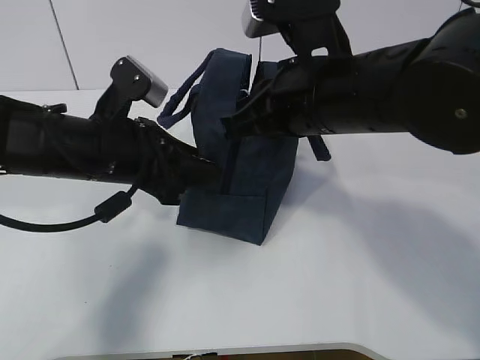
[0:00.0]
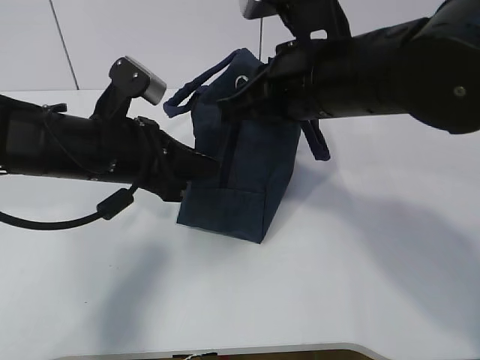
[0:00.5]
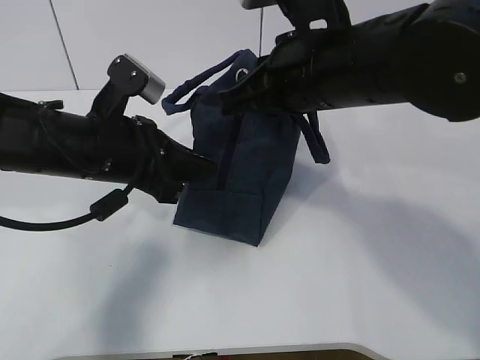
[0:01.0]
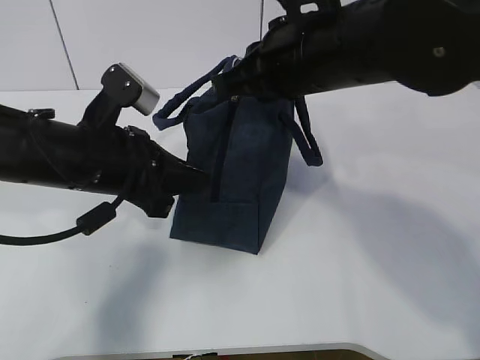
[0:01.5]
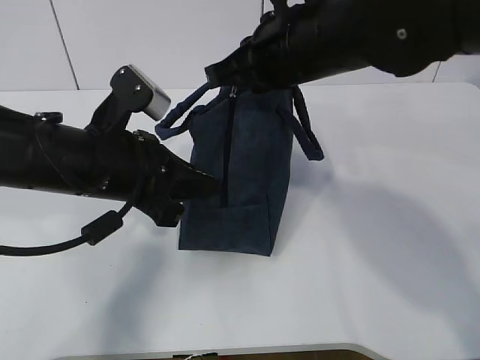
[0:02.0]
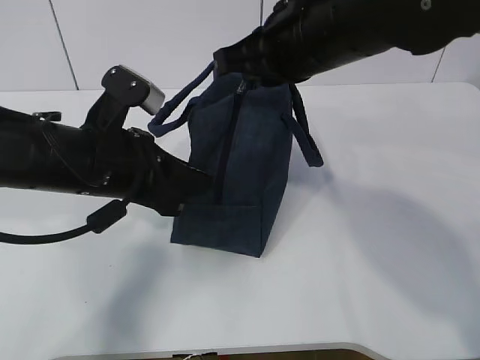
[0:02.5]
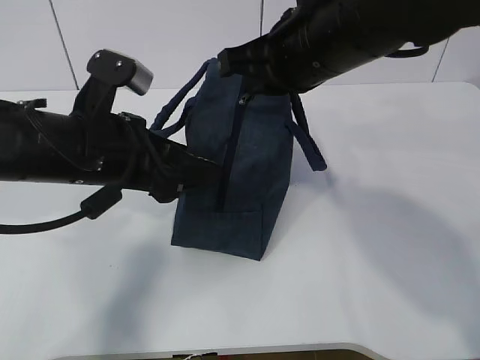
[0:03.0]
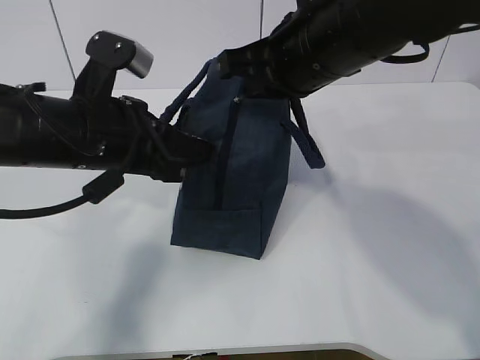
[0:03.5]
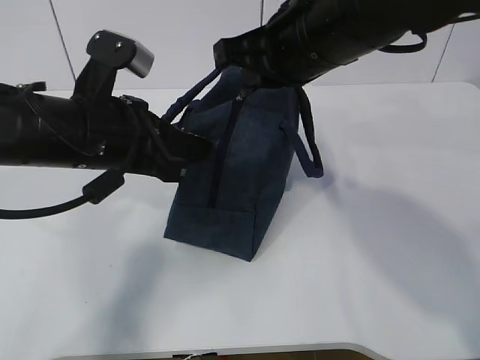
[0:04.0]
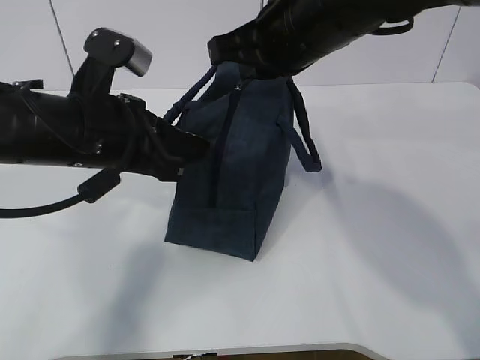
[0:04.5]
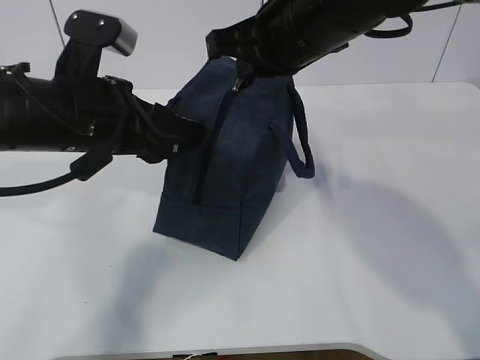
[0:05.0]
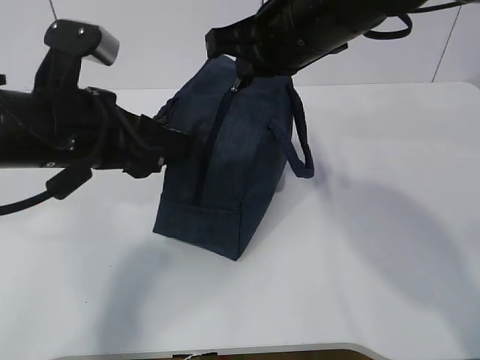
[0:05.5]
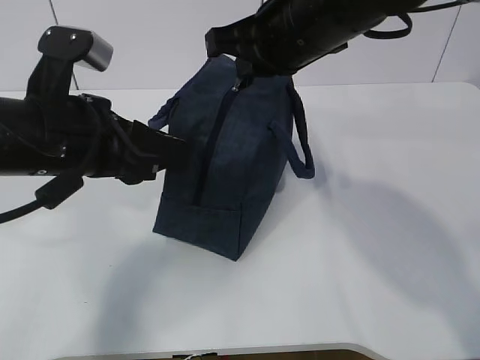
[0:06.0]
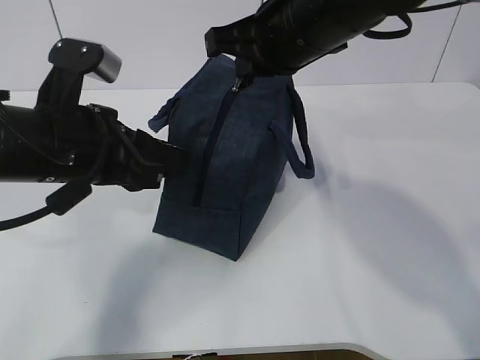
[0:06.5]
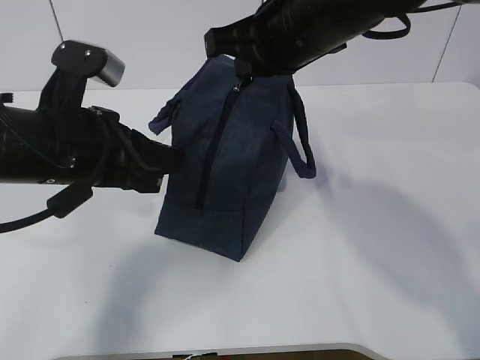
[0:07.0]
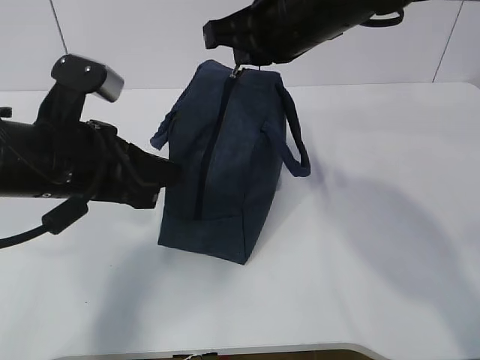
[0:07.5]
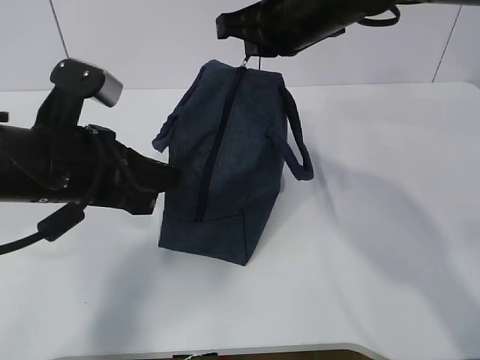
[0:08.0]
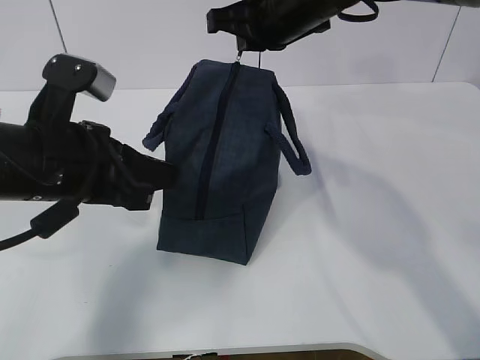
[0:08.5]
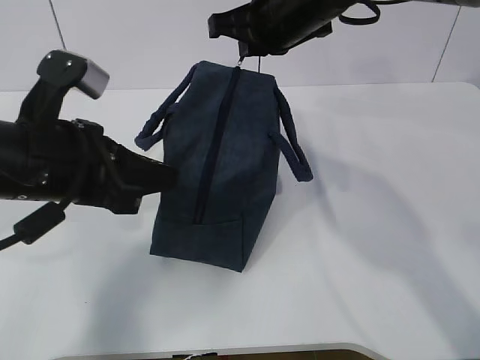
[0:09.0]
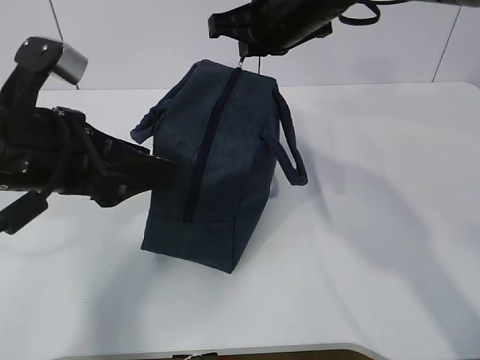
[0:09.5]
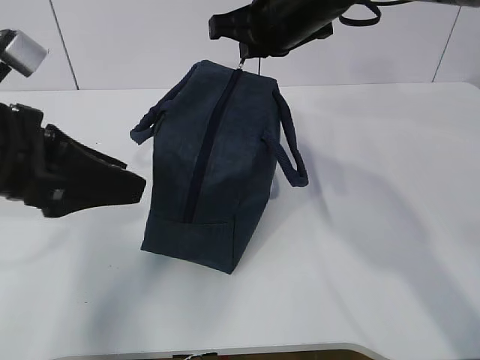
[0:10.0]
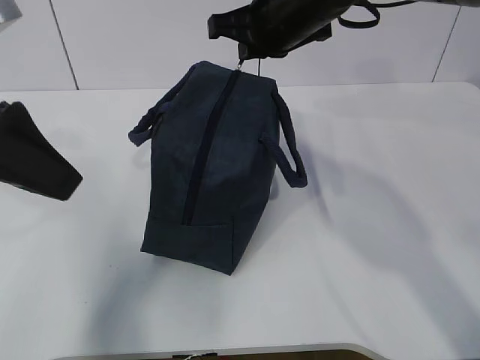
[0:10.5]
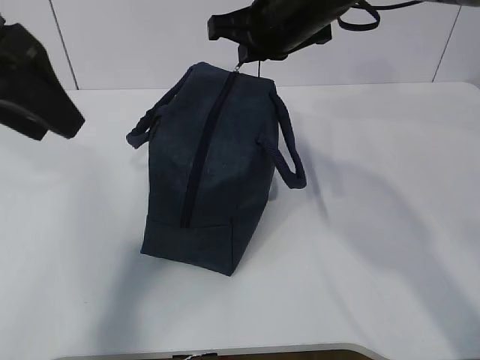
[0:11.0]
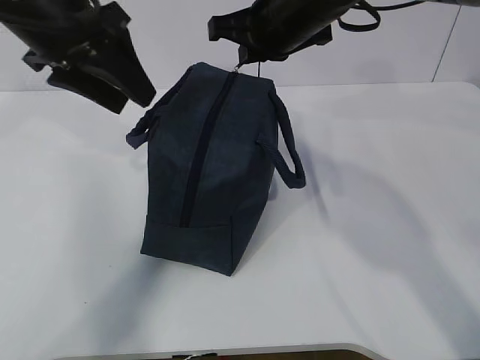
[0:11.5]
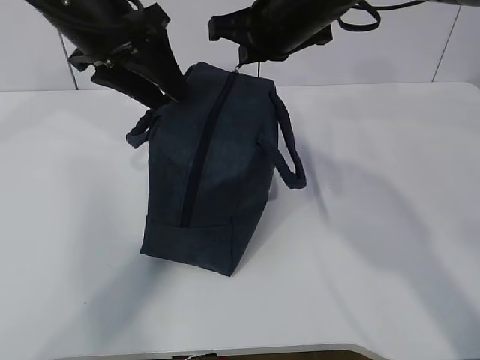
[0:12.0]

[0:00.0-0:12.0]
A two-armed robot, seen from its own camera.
Step, 0:00.0 to 0:07.0: Pull the zipper with your right hand.
0:00.0 to 0:02.0: The right gripper changes place by about 5 cm; the left gripper closes its fingers.
0:02.0 to 0:04.0: The left gripper opens, then closes once more.
0:04.0 to 0:06.0: The left gripper opens.
0:06.0 to 0:08.0: The left gripper closes its fingers.
0:08.0 to 0:10.0: The left gripper ends up about 5 cm from where it was, and opens up.
0:10.0 to 0:12.0: The left gripper travels forward by approximately 15 cm.

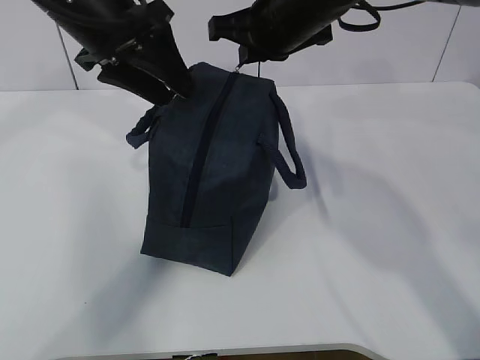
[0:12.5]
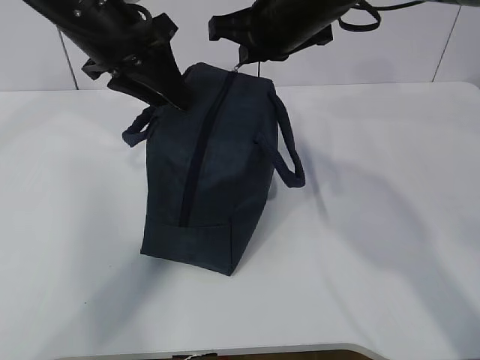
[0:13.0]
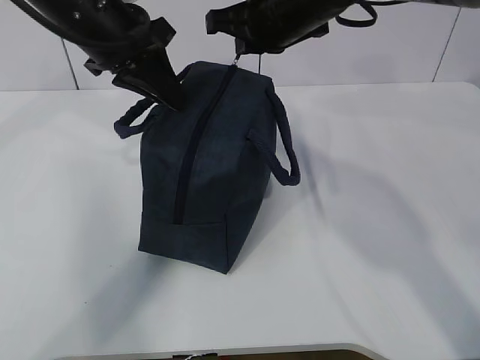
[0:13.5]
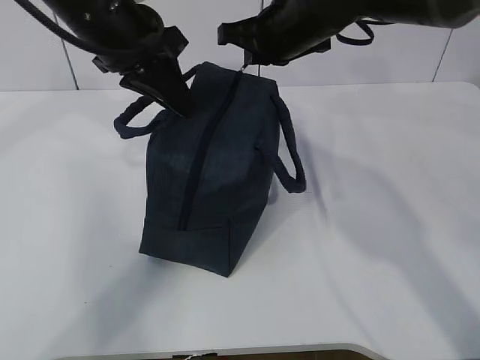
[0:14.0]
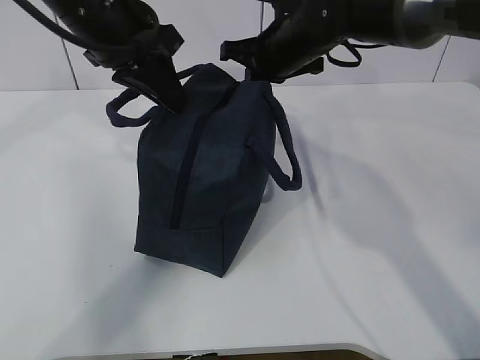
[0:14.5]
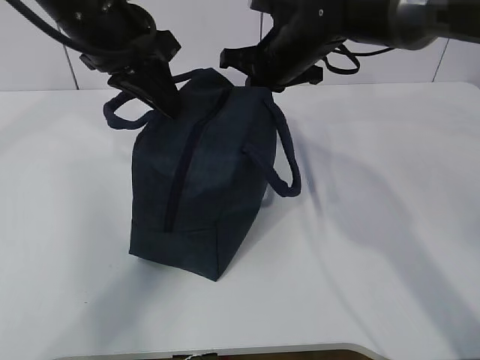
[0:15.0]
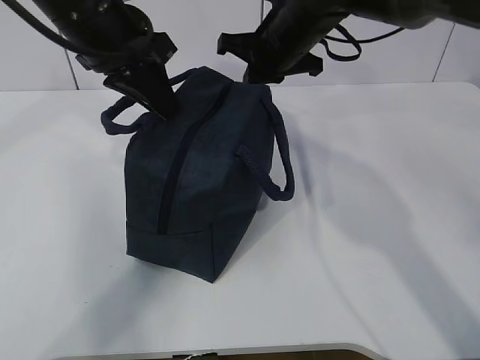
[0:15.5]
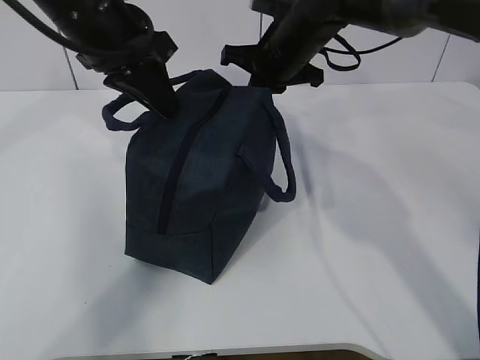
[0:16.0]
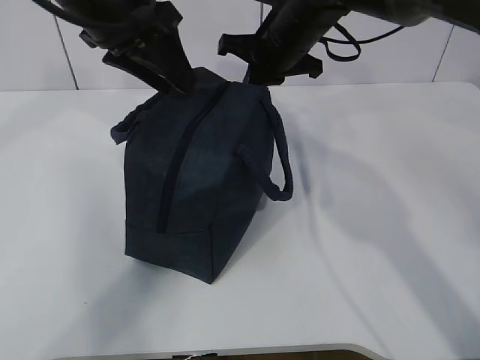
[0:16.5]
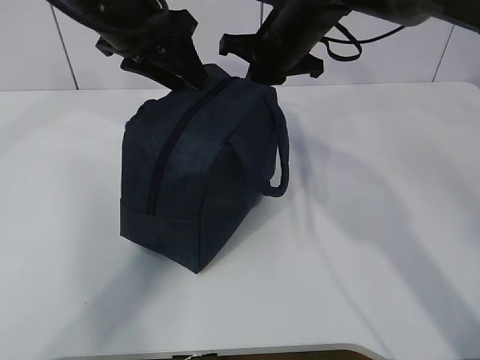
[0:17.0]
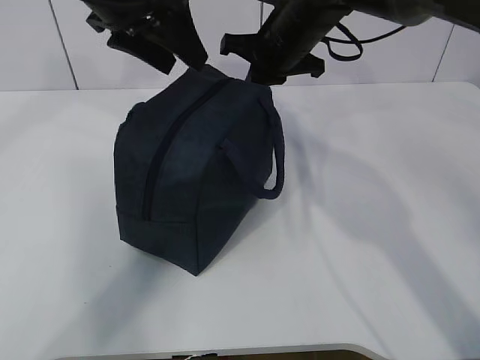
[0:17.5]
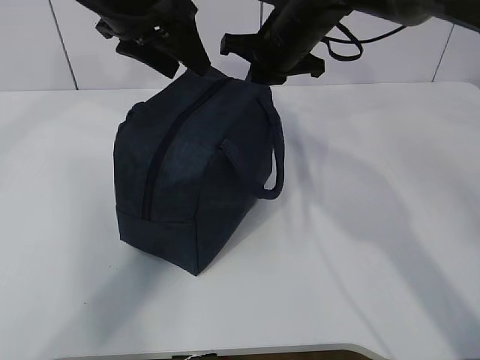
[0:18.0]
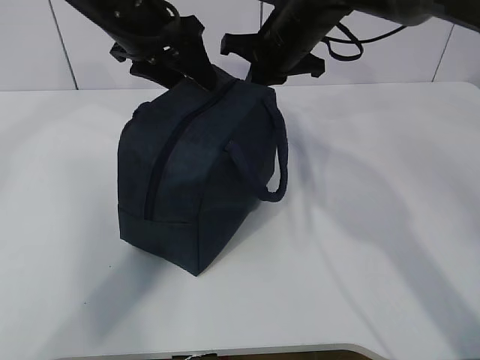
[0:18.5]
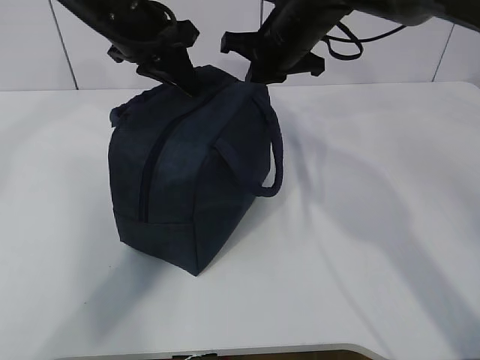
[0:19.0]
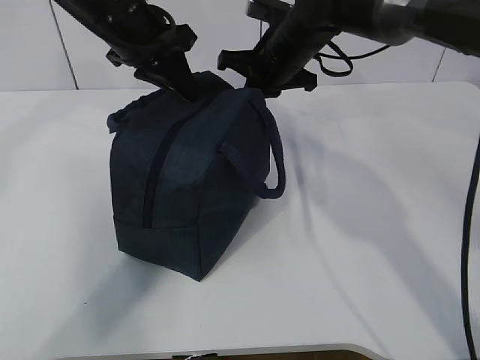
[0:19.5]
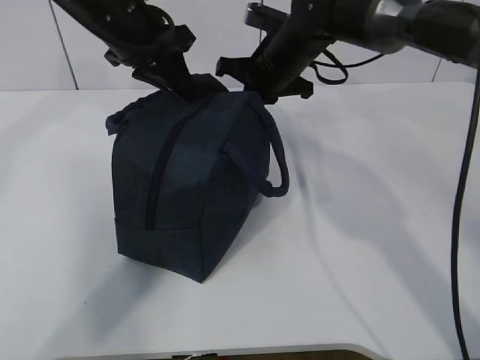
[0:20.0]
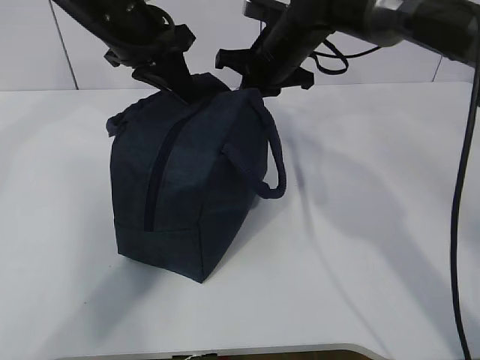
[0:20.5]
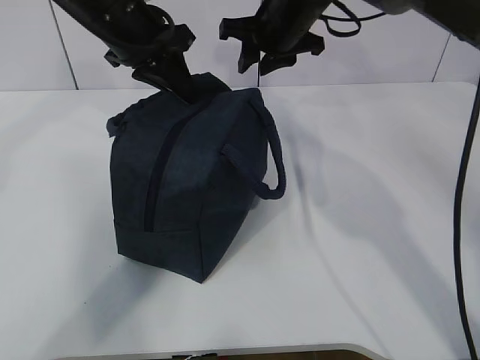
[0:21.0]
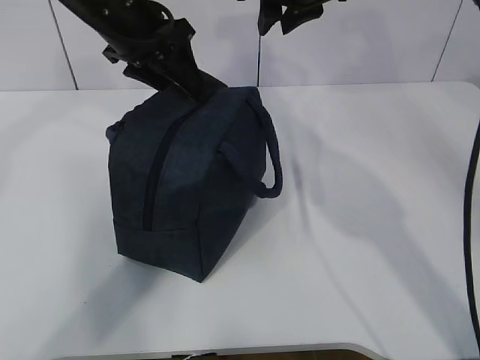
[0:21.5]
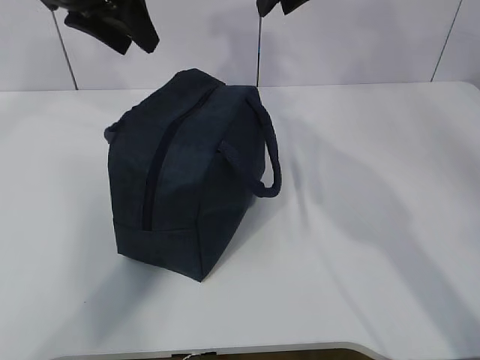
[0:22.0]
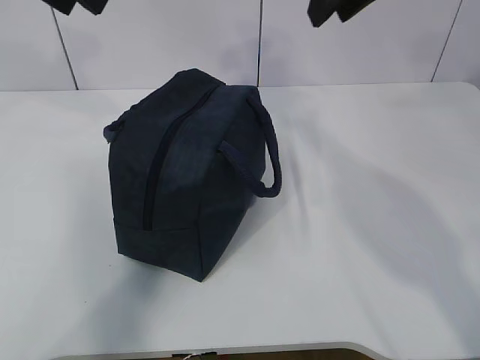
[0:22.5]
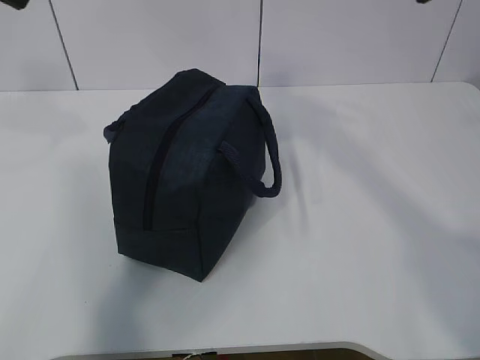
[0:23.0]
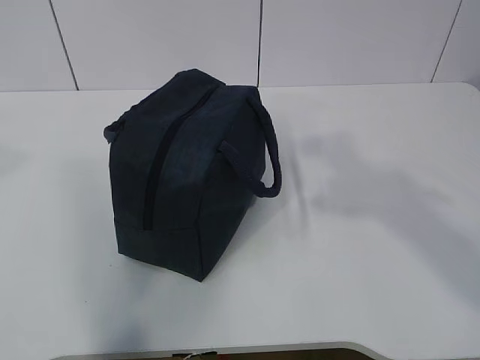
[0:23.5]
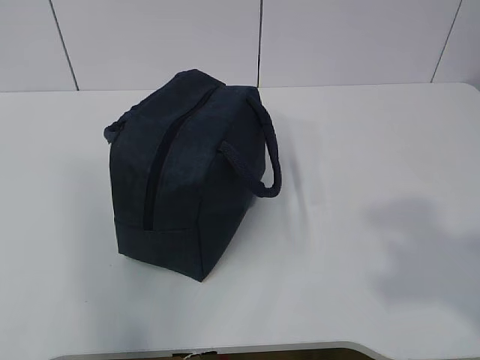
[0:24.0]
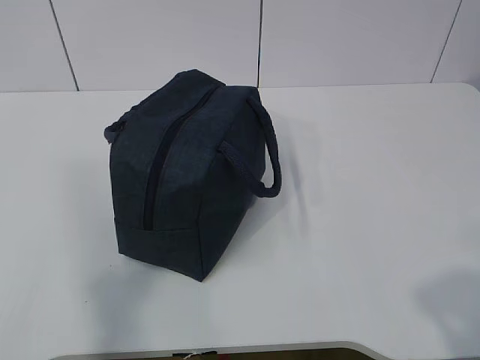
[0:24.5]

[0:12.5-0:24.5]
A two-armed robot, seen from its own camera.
0:12.5 to 0:14.5: The right gripper is displaced forward and downward by some 10 cm; the left gripper closes its fingers.
0:14.5 to 0:16.5: The left gripper opens its fingers.
0:16.5 to 0:18.5: The left gripper is displaced forward by about 5 cm.
0:18.5 to 0:20.5: The left gripper closes up.
0:20.5 to 0:22.5: The right gripper is displaced upward and backward by roughly 20 cm, and opens its fingers. Meanwhile the left gripper is displaced upward, to the left and backward by about 15 cm, and opens up.
0:22.5 to 0:24.5: The right gripper goes approximately 40 cm backward and to the right. Meanwhile the left gripper shifts roughly 35 cm backward.

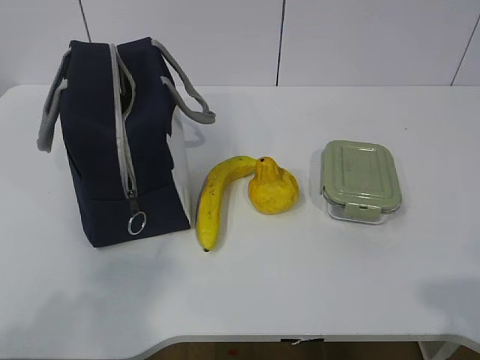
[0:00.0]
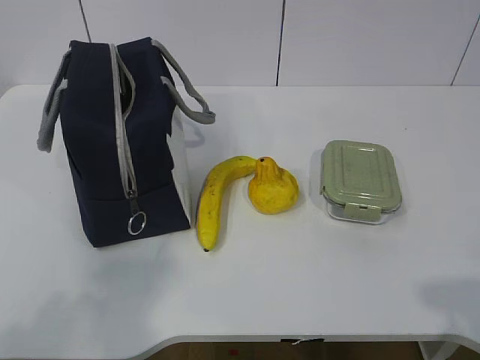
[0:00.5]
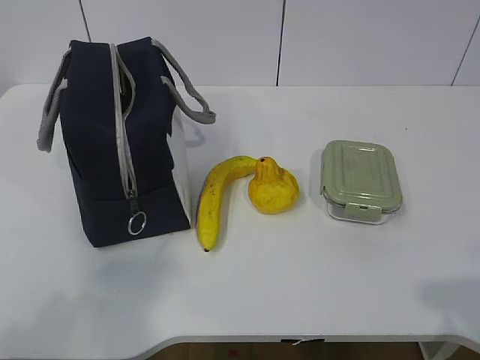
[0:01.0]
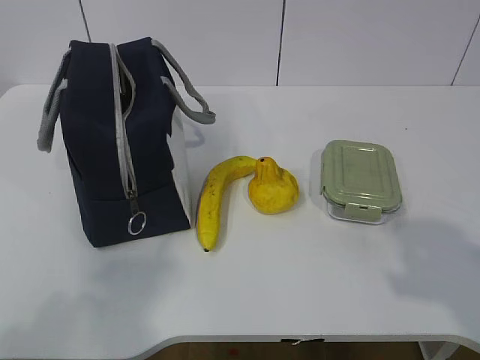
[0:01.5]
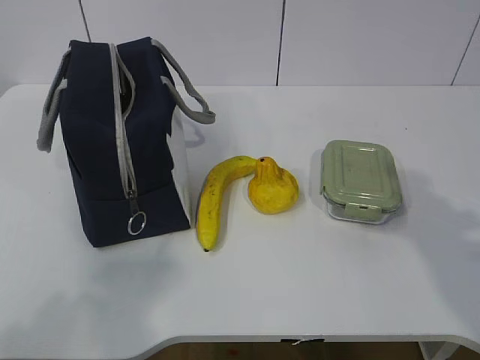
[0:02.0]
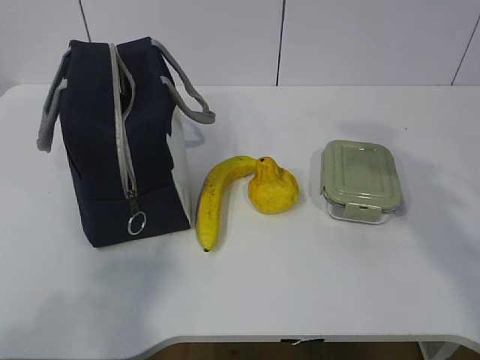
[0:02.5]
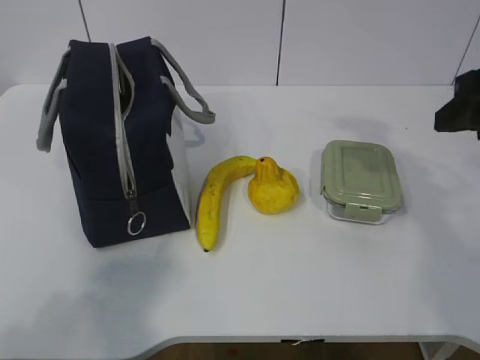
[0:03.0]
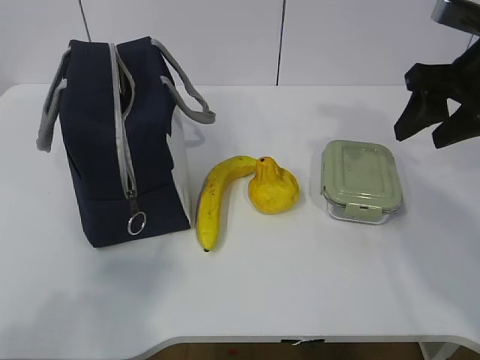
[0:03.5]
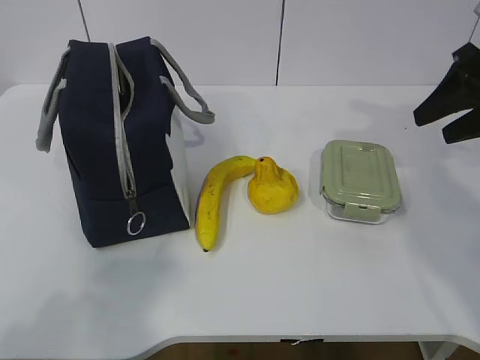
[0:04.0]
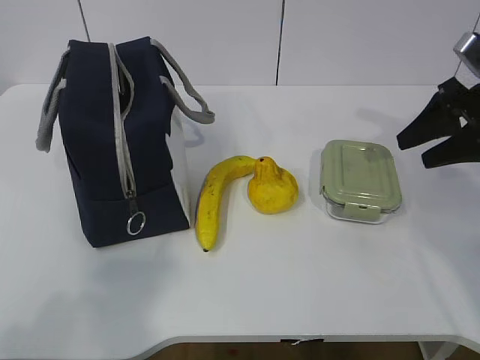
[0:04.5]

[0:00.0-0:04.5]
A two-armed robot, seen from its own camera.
0:02.0 to 0:04.5: The right gripper goes approximately 25 cm forward.
